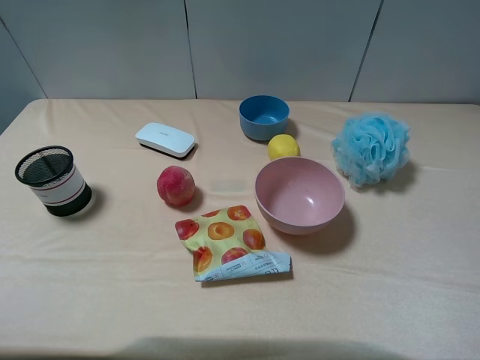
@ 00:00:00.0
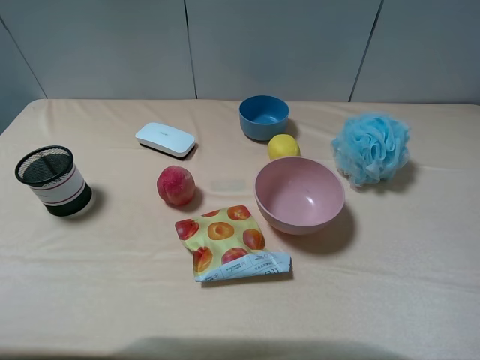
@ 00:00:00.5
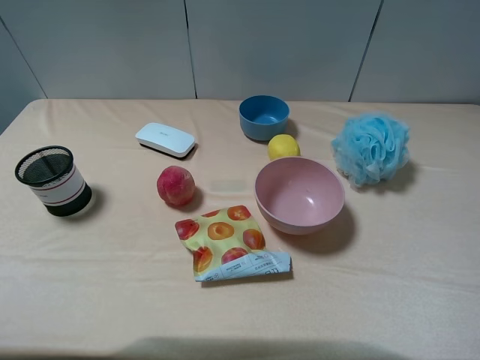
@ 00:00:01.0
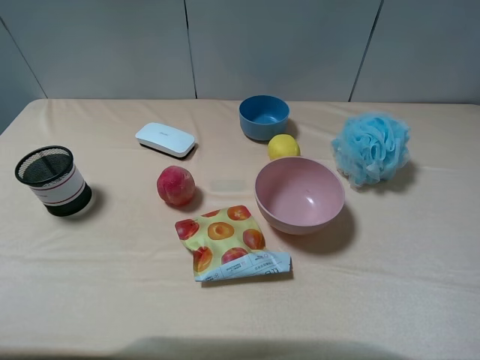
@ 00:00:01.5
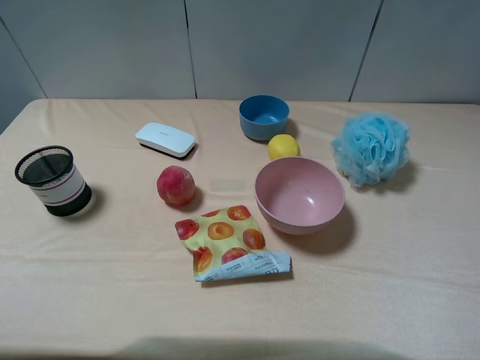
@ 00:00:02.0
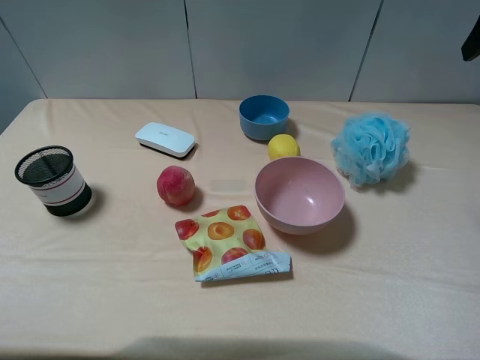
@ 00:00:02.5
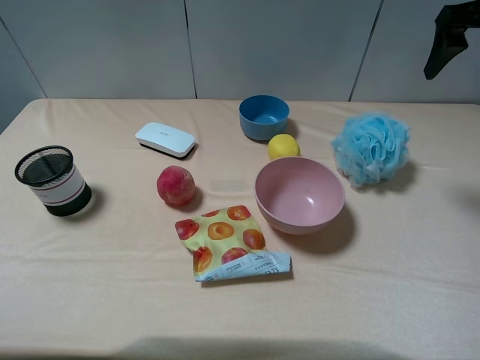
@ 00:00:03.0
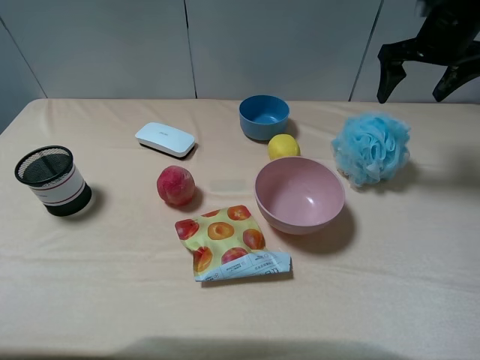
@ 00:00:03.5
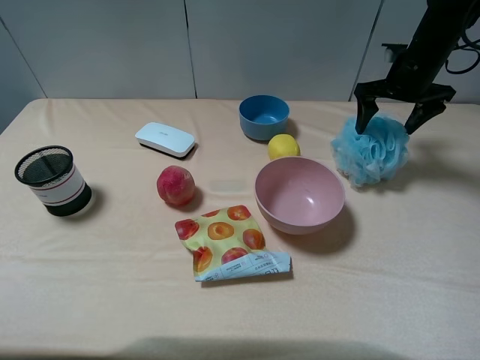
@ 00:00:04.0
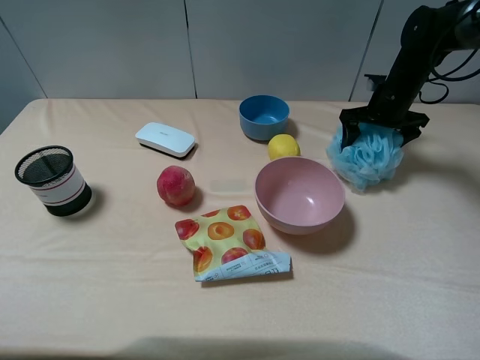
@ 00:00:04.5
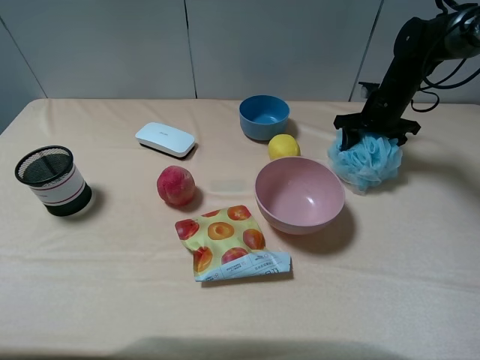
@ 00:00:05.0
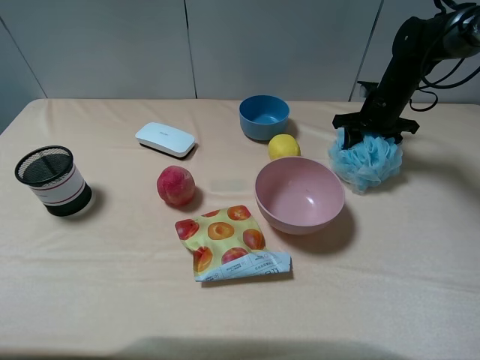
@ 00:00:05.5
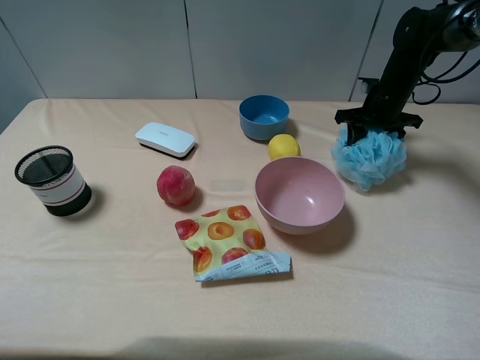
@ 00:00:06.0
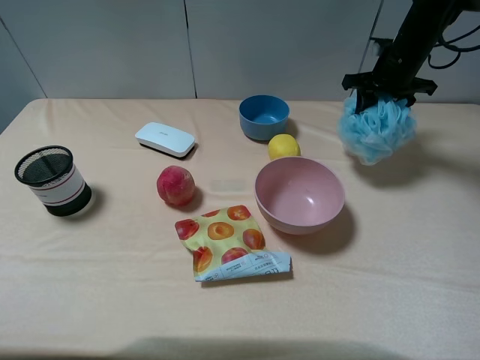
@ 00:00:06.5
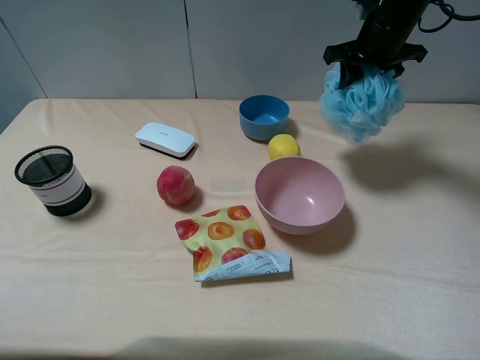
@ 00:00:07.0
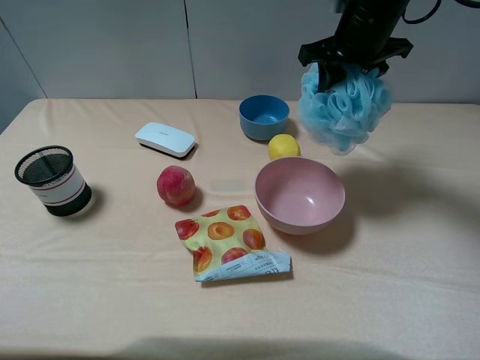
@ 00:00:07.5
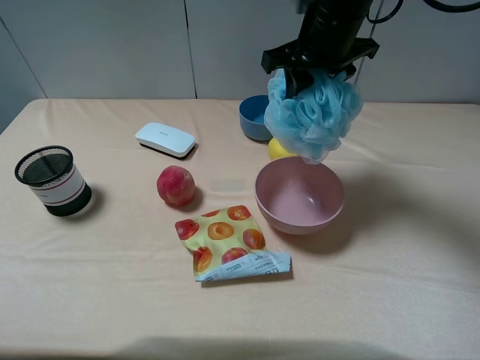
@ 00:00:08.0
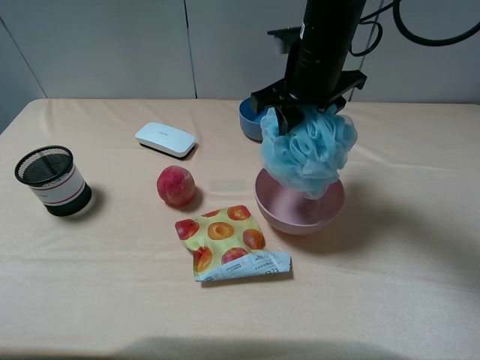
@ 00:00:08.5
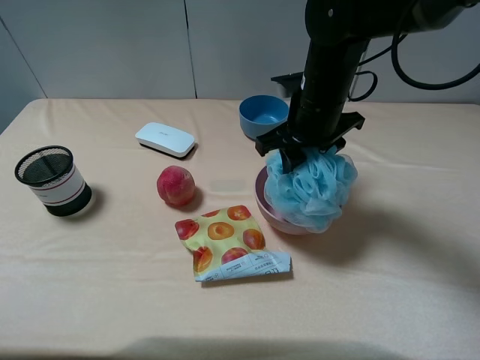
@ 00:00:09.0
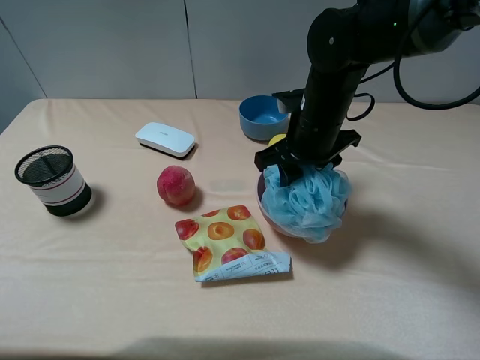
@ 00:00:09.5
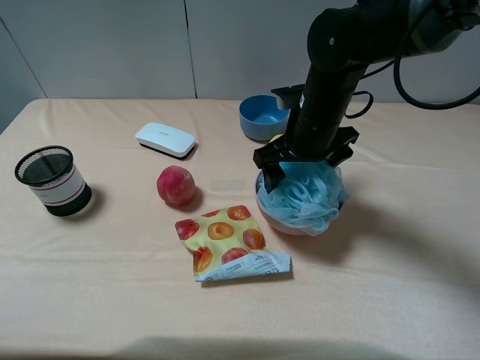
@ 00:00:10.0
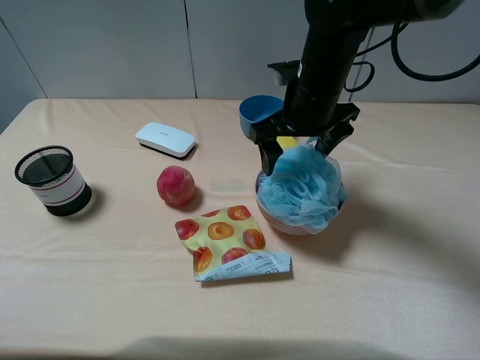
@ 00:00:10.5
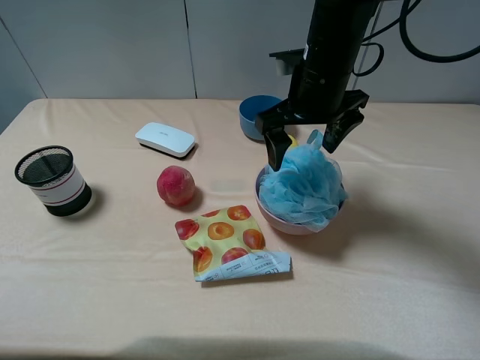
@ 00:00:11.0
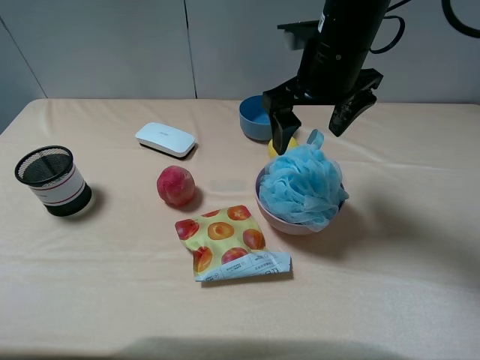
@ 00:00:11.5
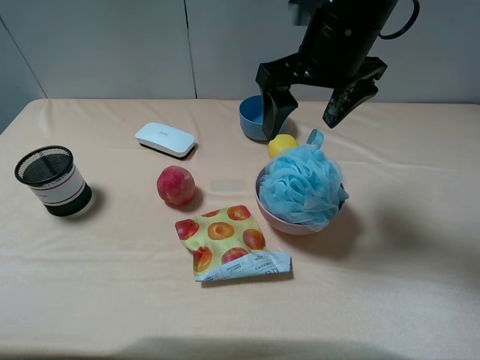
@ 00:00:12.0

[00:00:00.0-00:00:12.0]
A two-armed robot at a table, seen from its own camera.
Task of the whole recording: pick up an item with a gripper and place it in a random container on the table.
Step, 00:00:00.0 to 00:00:05.0: Grasp the shower sphere with the right gripper.
Step, 00:00:05.5 to 00:00:10.0: Place the shower sphere into the pink bowl with the right gripper.
00:00:02.0 to 00:00:04.0: The right gripper moves forward and downward, approximately 30 cm.
00:00:04.0 to 00:00:06.0: The right gripper shifts about 5 cm downward, and closes its fingers.
00:00:06.0 to 00:00:08.0: The right gripper travels to the left, upward and backward by about 25 cm.
00:00:08.0 to 00:00:10.0: The right gripper shifts roughly 10 cm downward, and opens up.
00:00:10.0 to 00:00:12.0: The right gripper heads upward, covering some 10 cm.

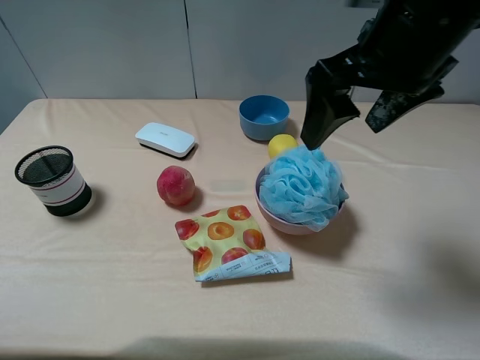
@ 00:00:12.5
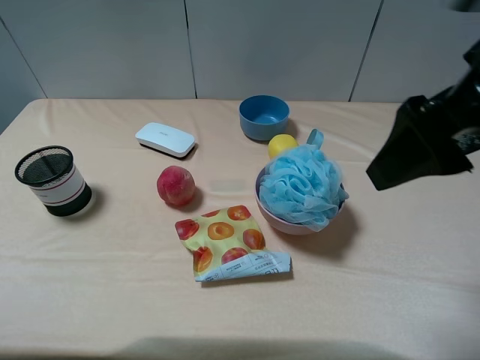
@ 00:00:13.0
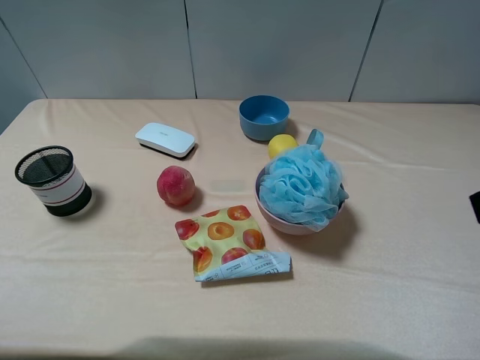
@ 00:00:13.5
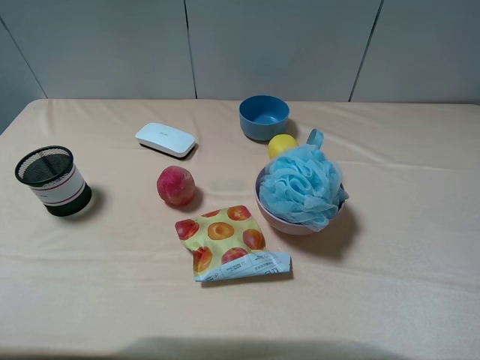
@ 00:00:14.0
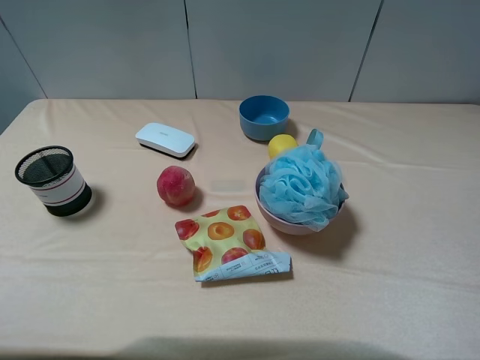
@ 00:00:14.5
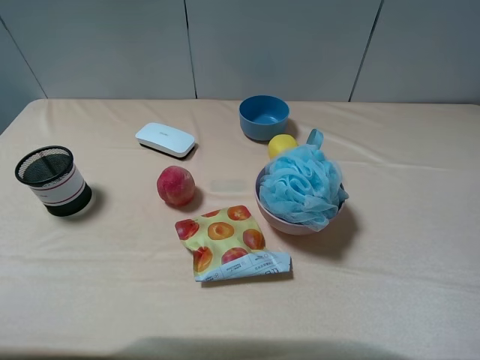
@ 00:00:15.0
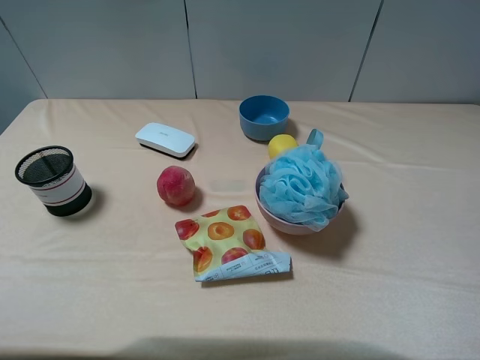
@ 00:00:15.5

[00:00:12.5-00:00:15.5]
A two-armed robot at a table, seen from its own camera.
Task of the whole recording: pick up an item with a gripper and place it in a random container on the table.
00:00:12.5 to 00:00:14.0: The right gripper shifts roughly 25 cm backward and to the right.
